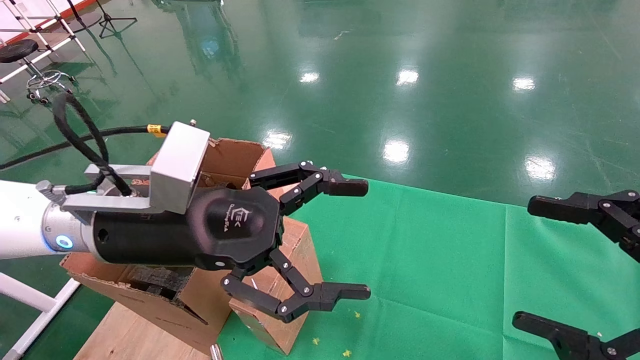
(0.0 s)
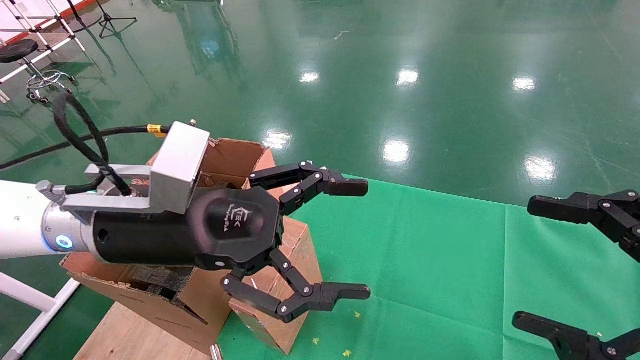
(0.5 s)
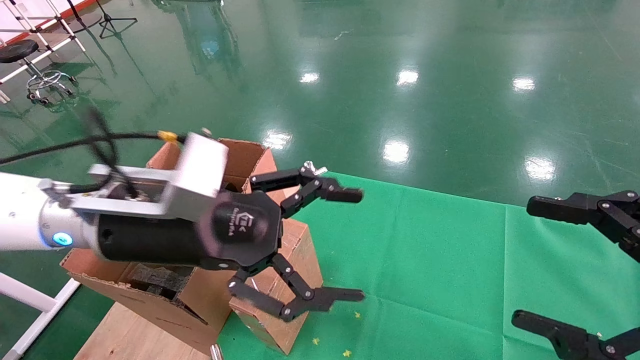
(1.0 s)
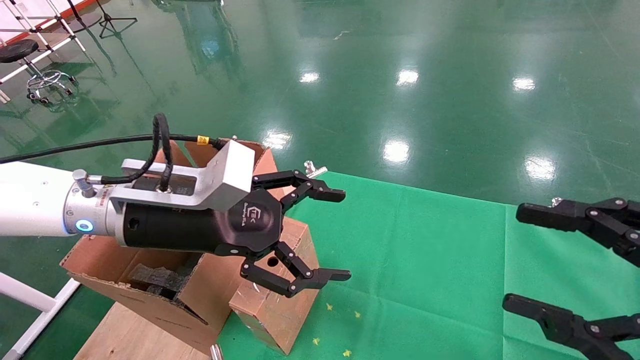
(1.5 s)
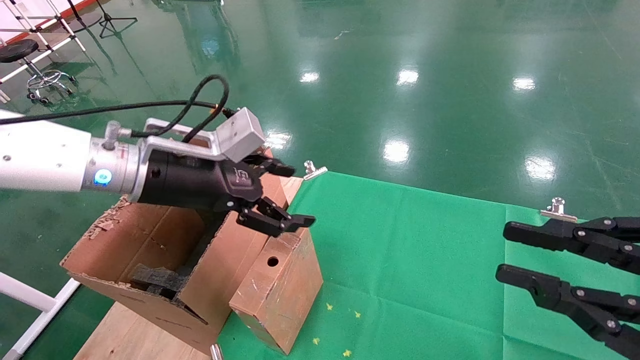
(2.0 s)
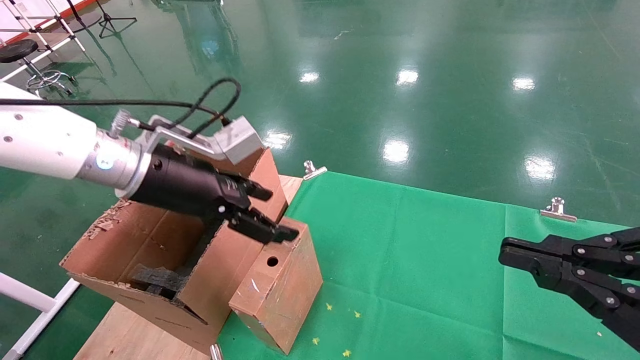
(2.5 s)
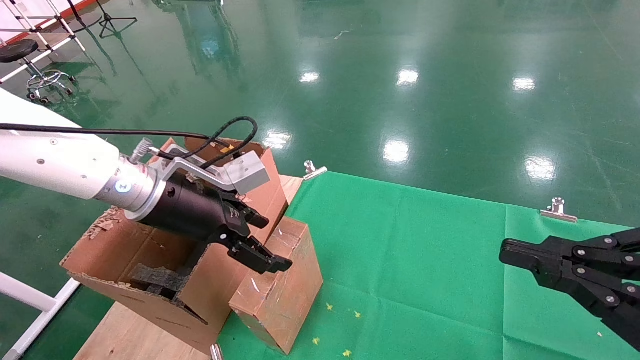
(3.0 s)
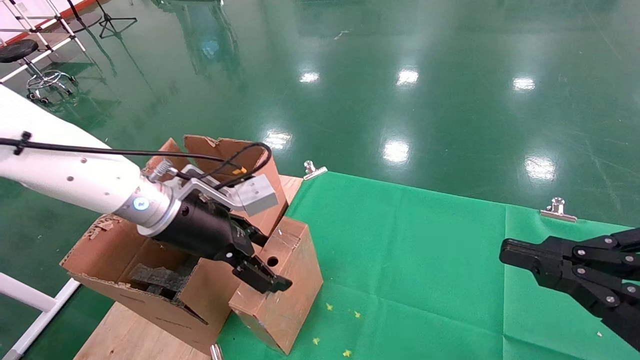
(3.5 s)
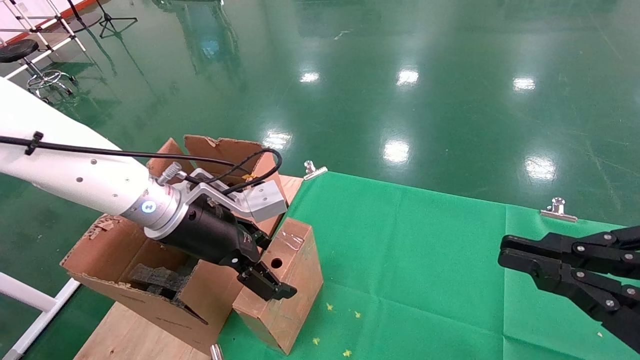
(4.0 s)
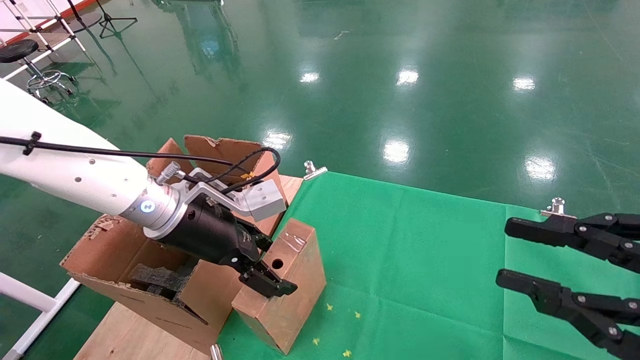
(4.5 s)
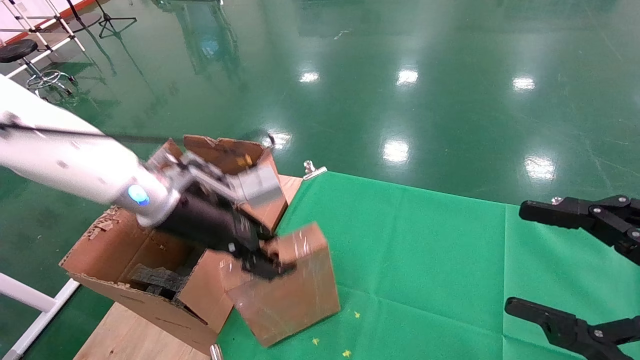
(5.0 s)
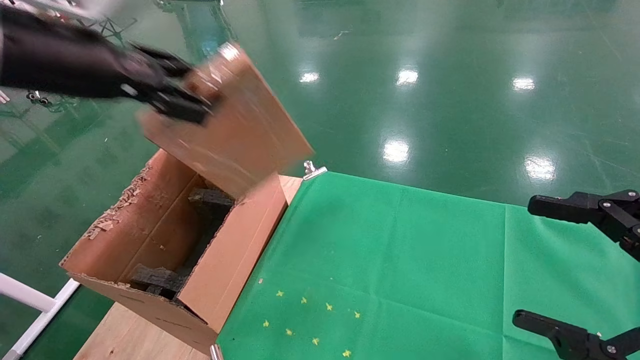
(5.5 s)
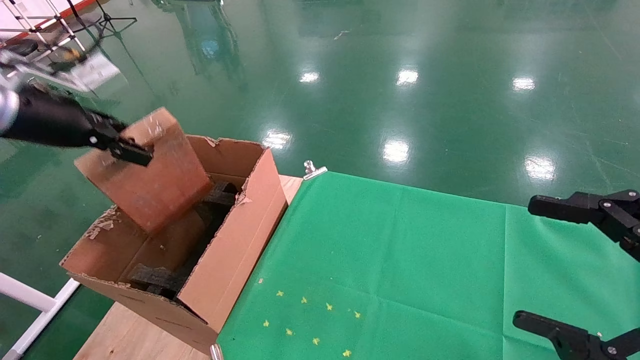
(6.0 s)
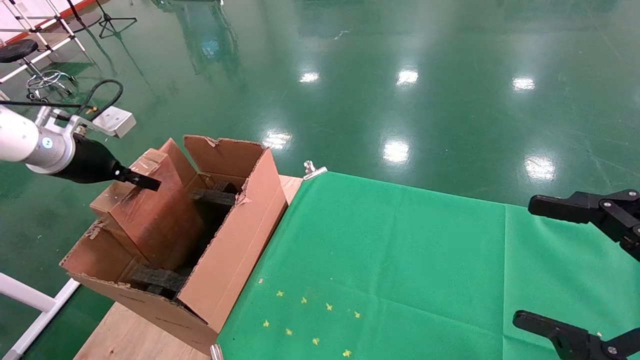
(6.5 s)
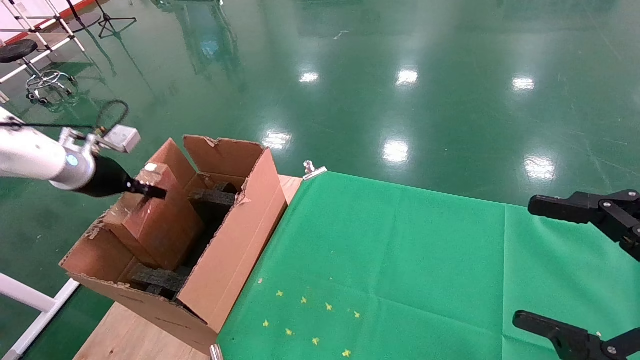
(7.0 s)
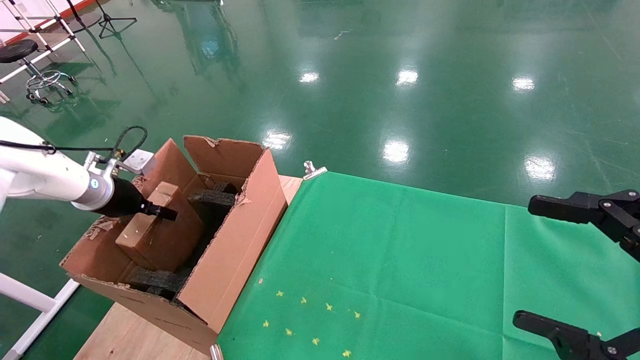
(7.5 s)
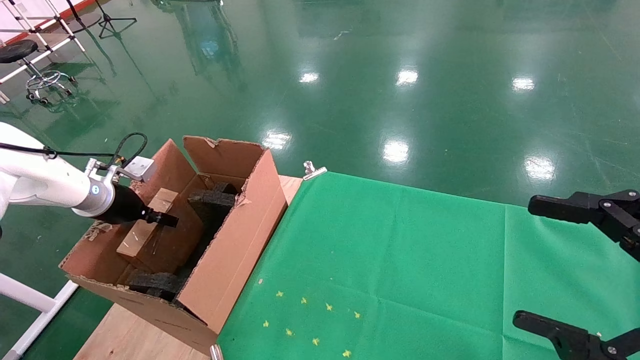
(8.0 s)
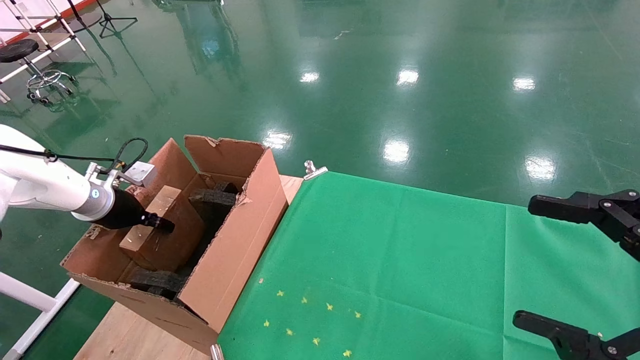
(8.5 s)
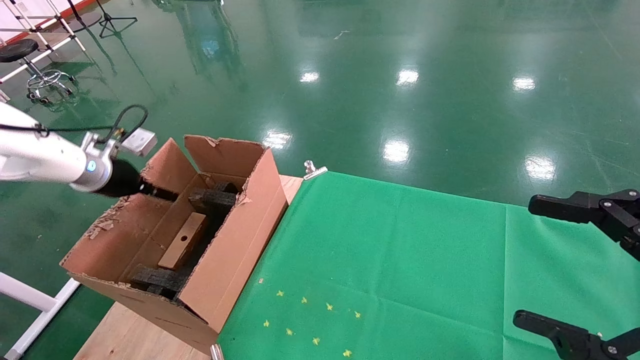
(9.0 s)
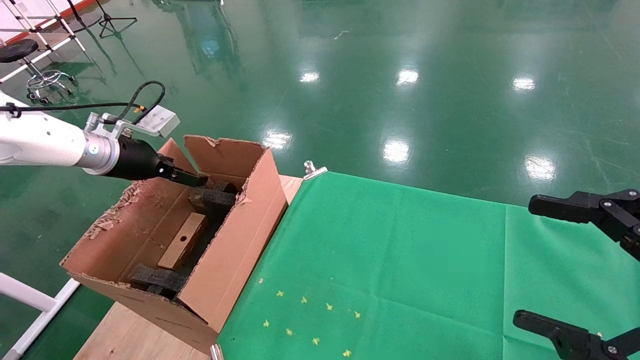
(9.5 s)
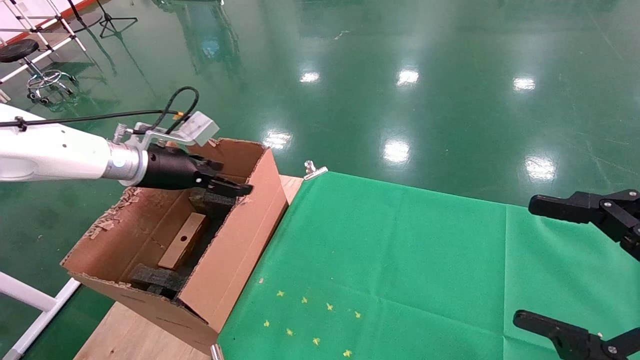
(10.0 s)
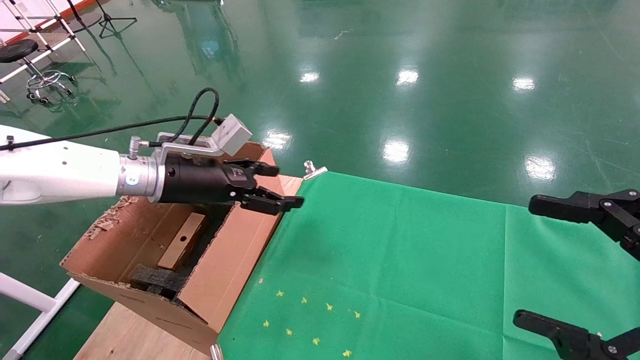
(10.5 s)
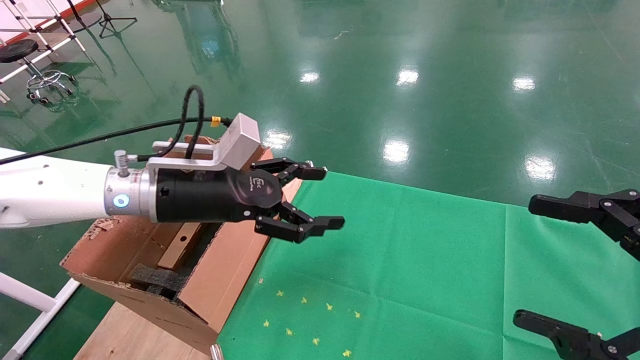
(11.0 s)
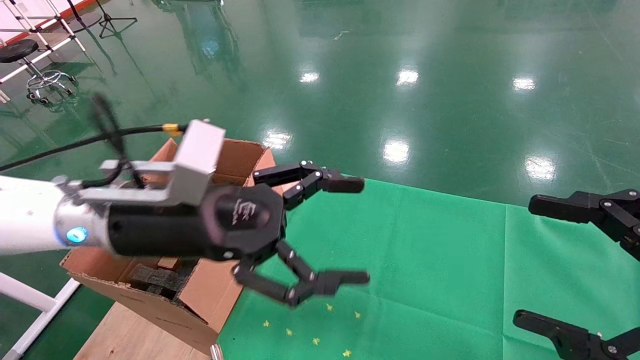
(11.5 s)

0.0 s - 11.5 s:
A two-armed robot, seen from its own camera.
Task of the whole recording: using a robotic arm to pick up a cardboard box and palace it the carton.
Step, 1.5 s - 5.0 s: Pick up the mouse and the power cord paper box.
Step, 5.5 s - 8.5 s: Place the mouse and the power cord paper box into the container.
0.0 s - 2.0 s: The right gripper closes its fingers; the left gripper travels forward by approximately 5 cm.
2.0 s - 4.0 s: The left gripper heads downward, covering roughly 5 cm. Meanwhile the right gripper closes its fingers.
4.0 s - 6.0 s: The left gripper moves to the left and upward, some 25 cm, and closes up. Meanwhile the right gripper opens up.
6.0 s - 7.5 s: The left gripper shifts about 20 cm downward and forward.
7.5 s - 9.5 s: The left gripper travels upward and to the right by roughly 10 cm, and opens its fingers.
9.5 s - 11.5 s: The left gripper travels to the right and backward by about 25 cm.

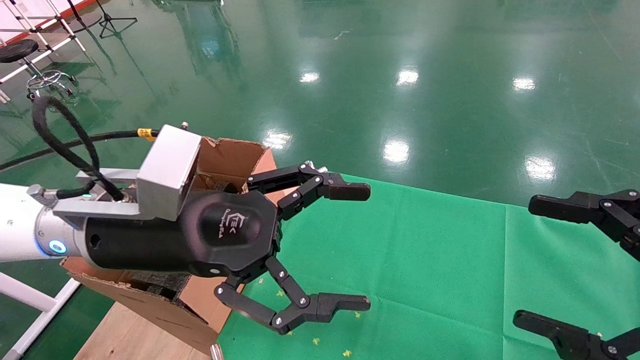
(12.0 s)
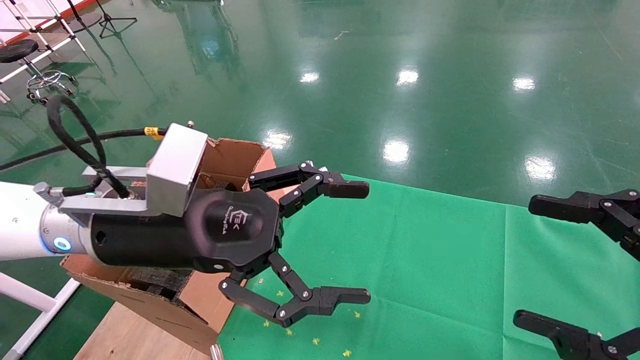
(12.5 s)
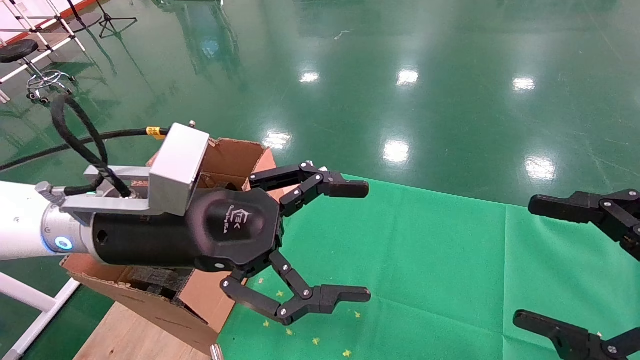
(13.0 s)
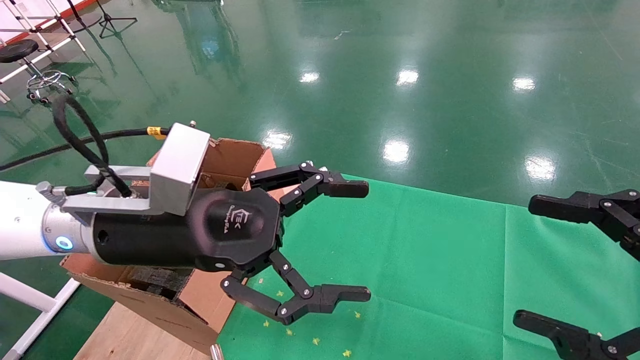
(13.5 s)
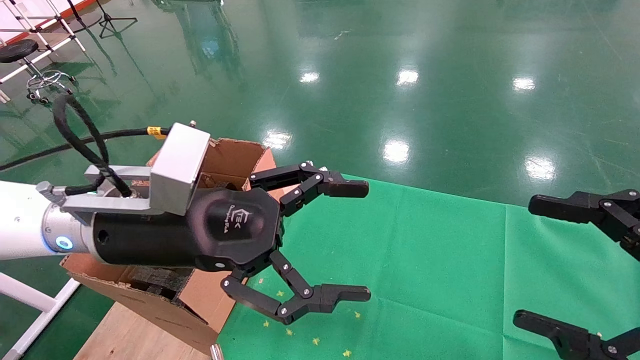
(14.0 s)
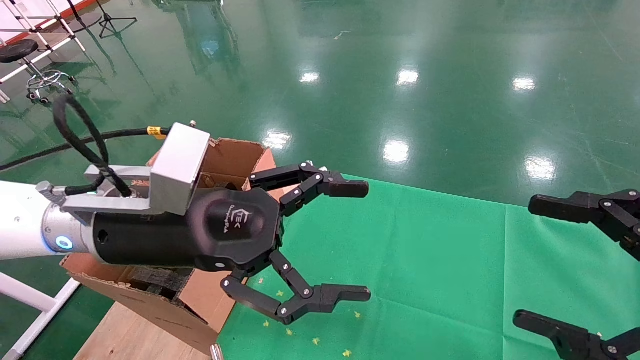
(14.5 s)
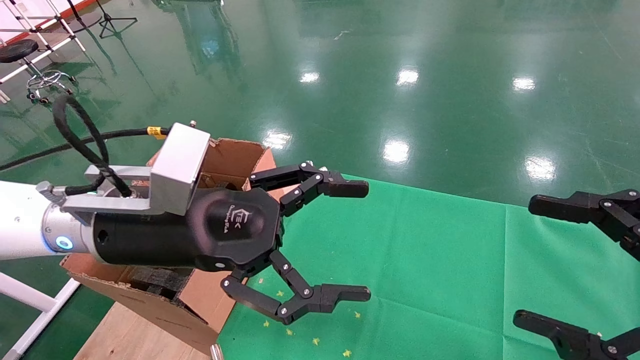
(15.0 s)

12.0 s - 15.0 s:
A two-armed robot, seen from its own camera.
Task of the whole recording: using a robotic arm to pick up a cardboard box and palace it the carton.
12.0 s - 15.0 s: The two grippers keep their place.

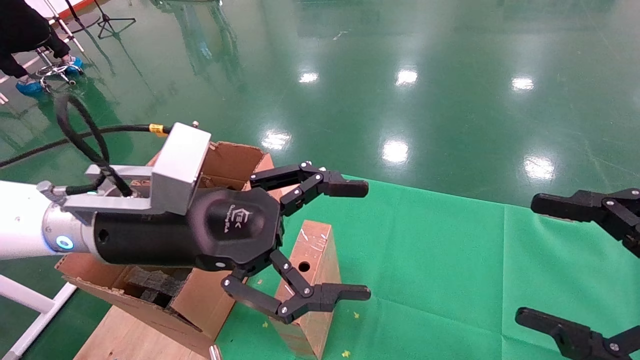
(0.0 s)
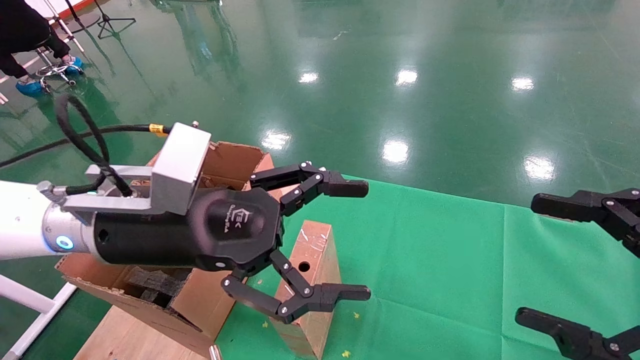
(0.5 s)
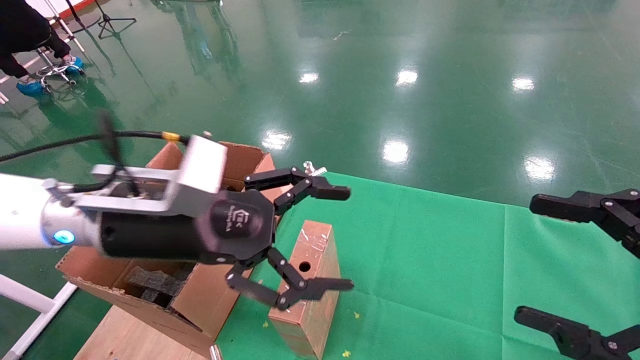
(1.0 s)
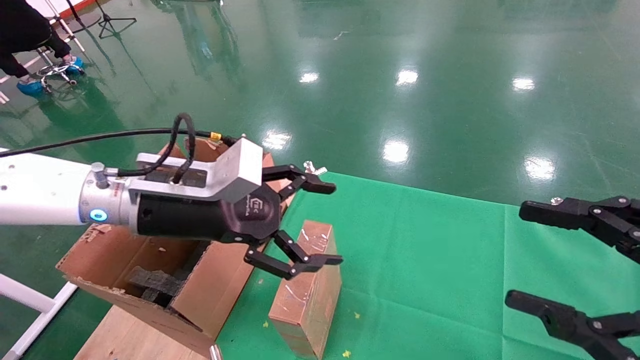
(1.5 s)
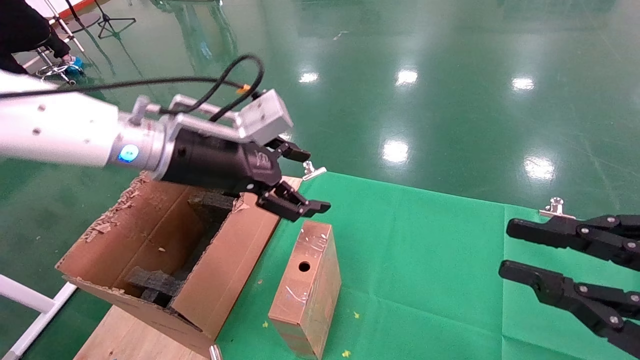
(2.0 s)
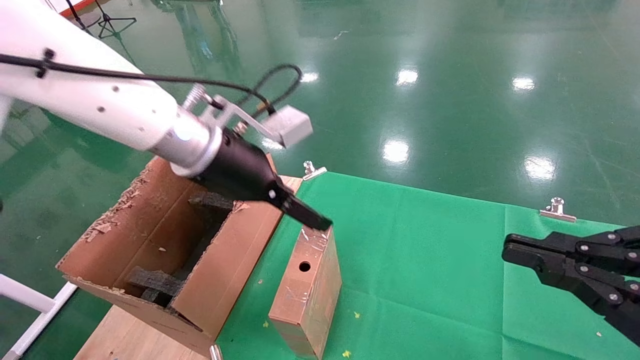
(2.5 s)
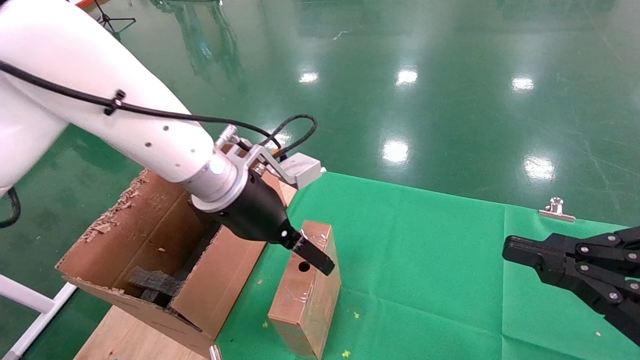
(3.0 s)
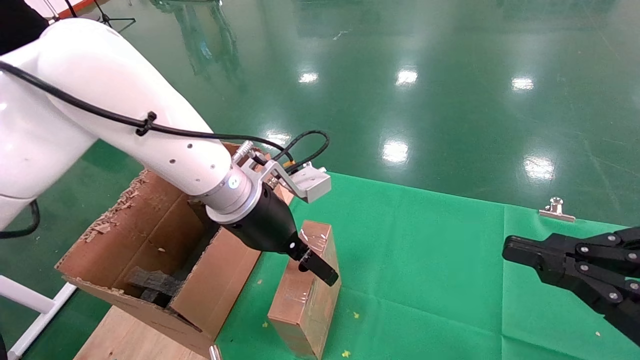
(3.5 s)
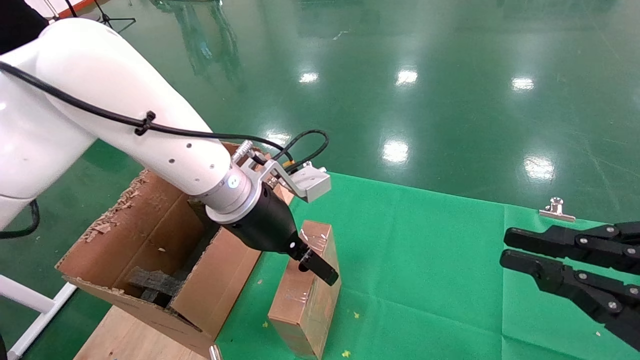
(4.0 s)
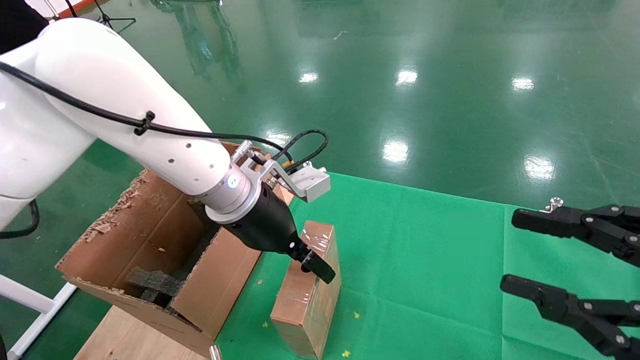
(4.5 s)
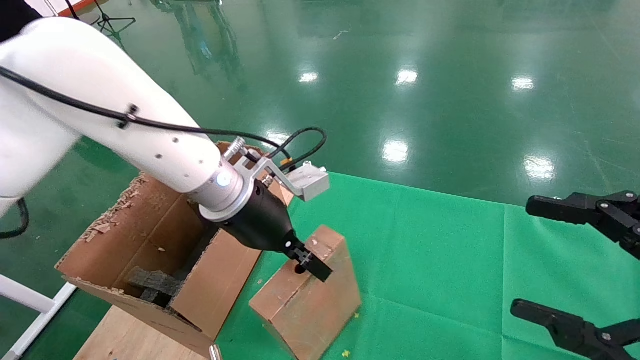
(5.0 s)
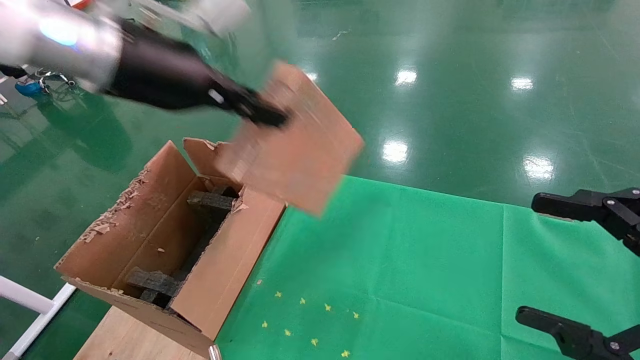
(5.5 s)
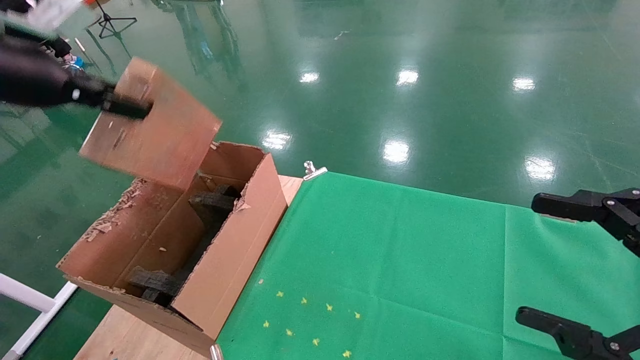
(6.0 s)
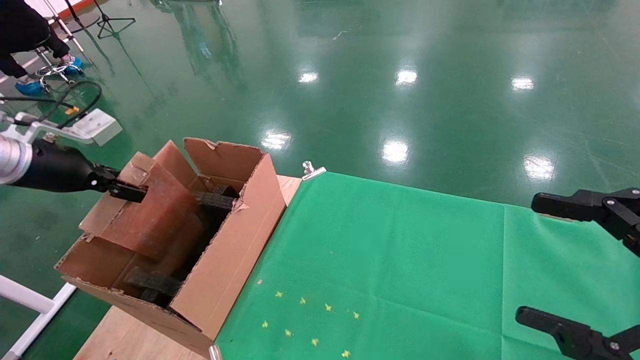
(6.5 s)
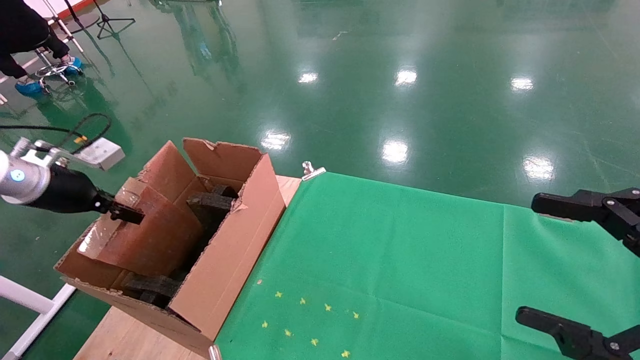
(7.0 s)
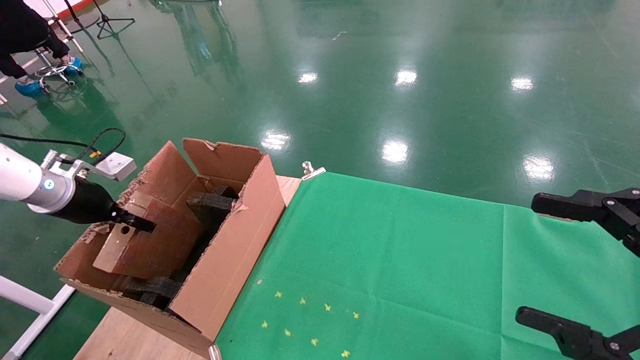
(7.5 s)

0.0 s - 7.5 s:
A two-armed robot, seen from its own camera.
Task of the whole recording: using a robotic arm to pick up a cardboard box and palace it the carton.
Step, 1.5 s - 4.5 s: Pick up the mouse and the power cord paper box.
0.0 s - 2.0 s: The left gripper is displaced forward by approximately 10 cm. Meanwhile the right gripper closes its fingers.
2.0 s - 4.0 s: The left gripper moves to the right and downward, approximately 10 cm.
4.0 s - 5.5 s: The right gripper opens up. Meanwhile the left gripper heads upward and to the left, covering roughly 20 cm, and closes.
5.5 s - 7.5 s: The left gripper is displaced to the left and downward by approximately 30 cm.
